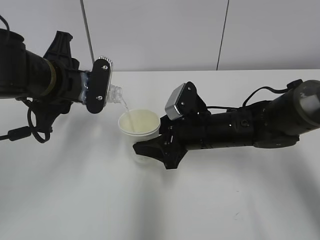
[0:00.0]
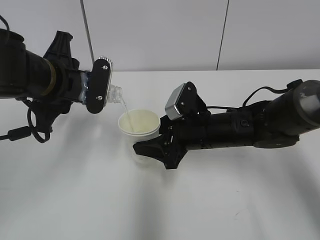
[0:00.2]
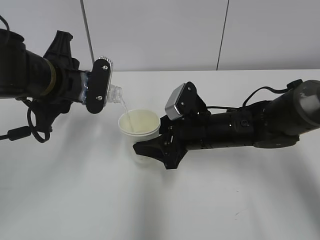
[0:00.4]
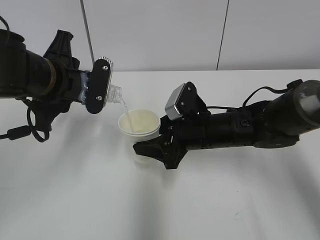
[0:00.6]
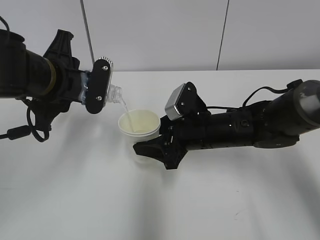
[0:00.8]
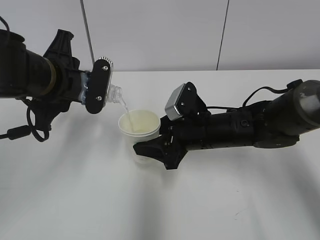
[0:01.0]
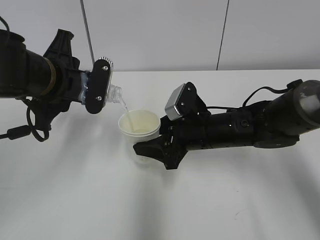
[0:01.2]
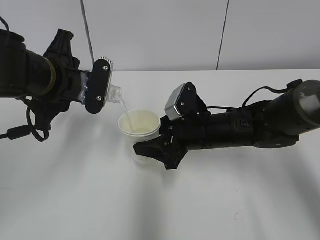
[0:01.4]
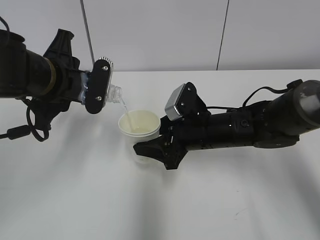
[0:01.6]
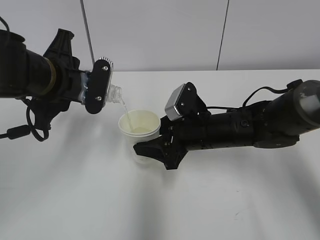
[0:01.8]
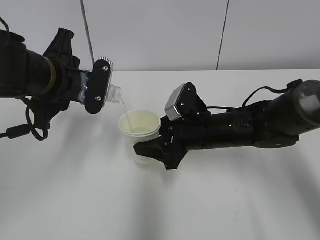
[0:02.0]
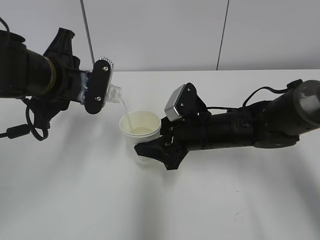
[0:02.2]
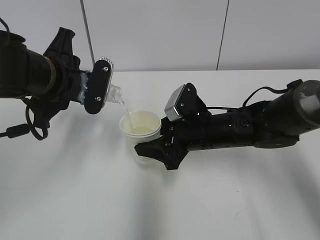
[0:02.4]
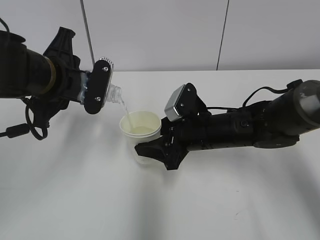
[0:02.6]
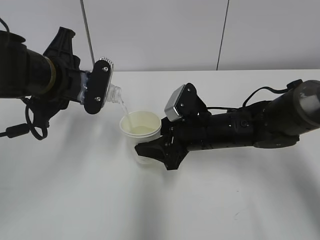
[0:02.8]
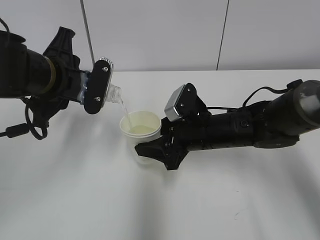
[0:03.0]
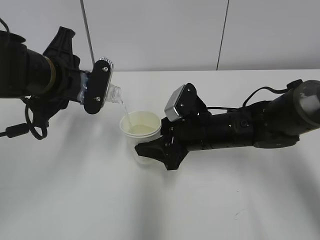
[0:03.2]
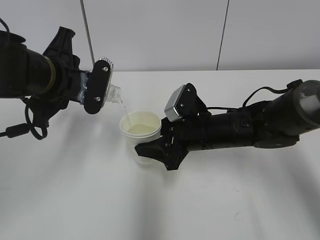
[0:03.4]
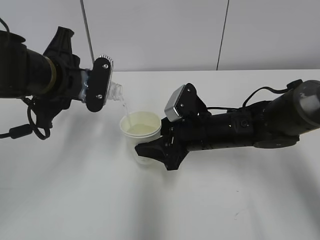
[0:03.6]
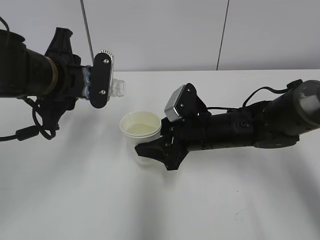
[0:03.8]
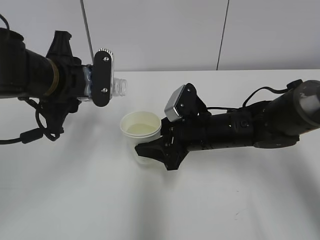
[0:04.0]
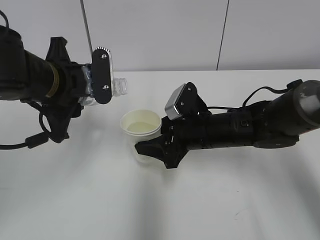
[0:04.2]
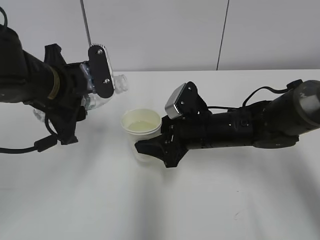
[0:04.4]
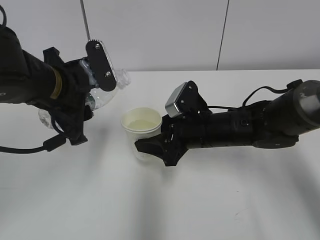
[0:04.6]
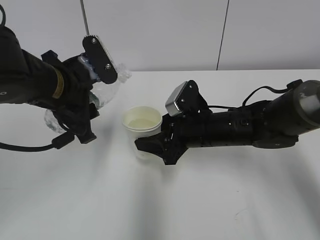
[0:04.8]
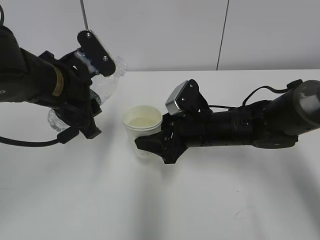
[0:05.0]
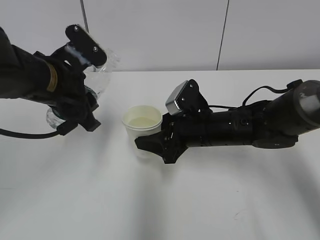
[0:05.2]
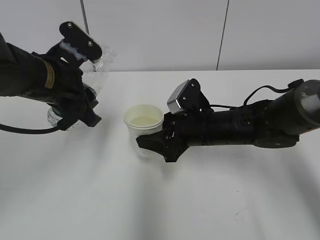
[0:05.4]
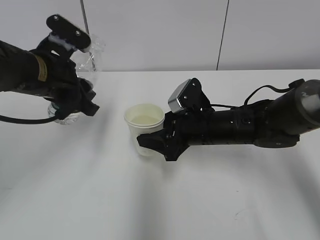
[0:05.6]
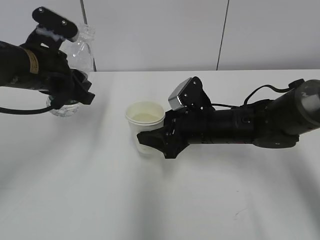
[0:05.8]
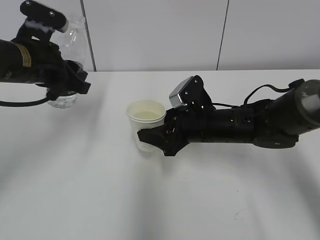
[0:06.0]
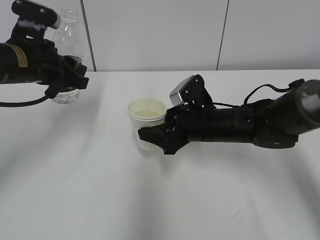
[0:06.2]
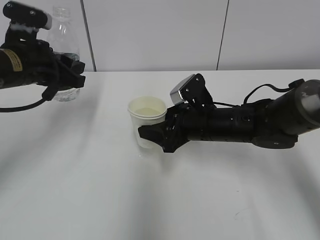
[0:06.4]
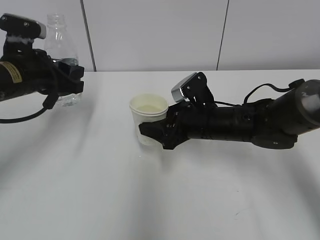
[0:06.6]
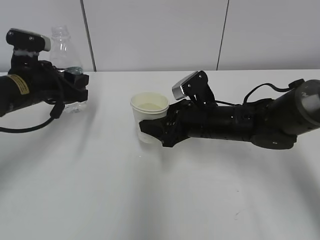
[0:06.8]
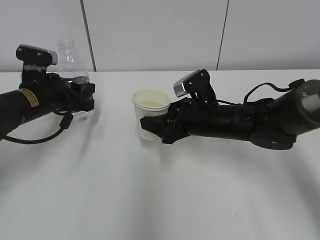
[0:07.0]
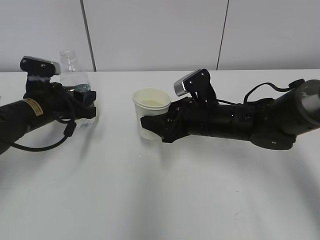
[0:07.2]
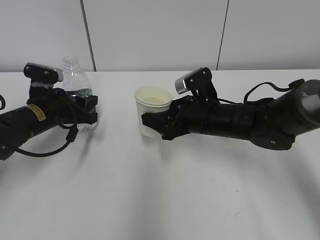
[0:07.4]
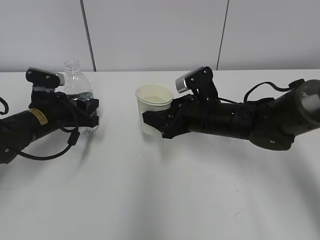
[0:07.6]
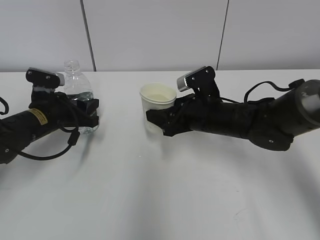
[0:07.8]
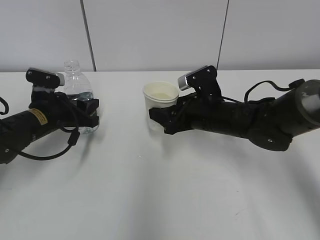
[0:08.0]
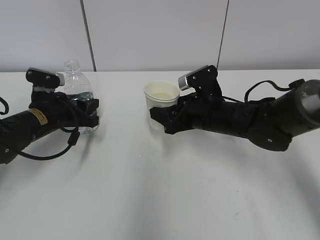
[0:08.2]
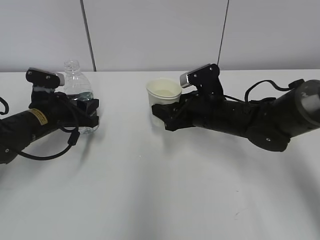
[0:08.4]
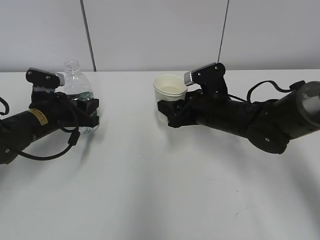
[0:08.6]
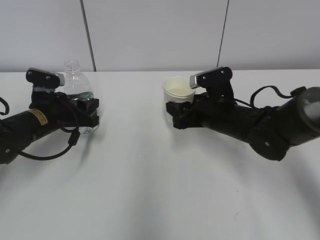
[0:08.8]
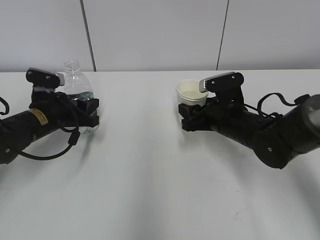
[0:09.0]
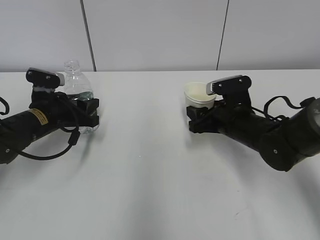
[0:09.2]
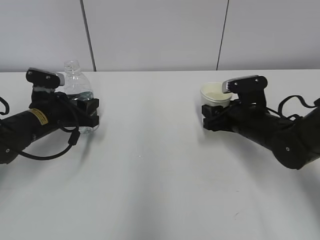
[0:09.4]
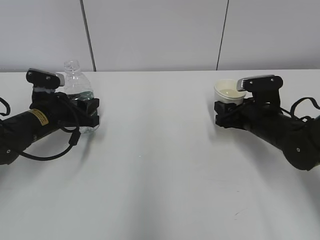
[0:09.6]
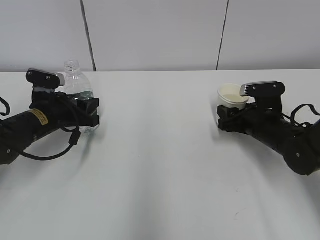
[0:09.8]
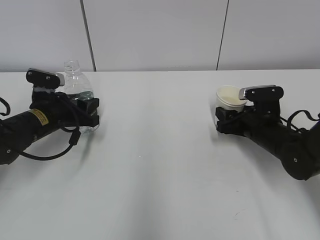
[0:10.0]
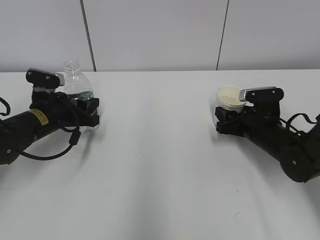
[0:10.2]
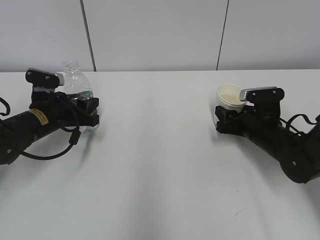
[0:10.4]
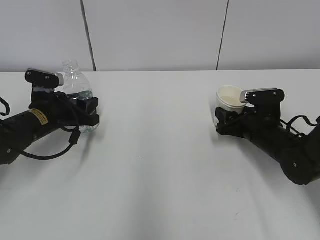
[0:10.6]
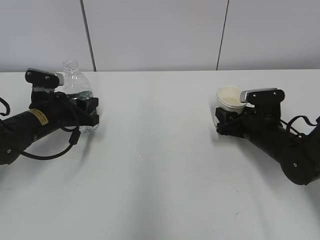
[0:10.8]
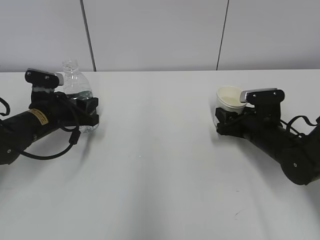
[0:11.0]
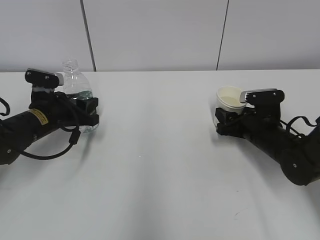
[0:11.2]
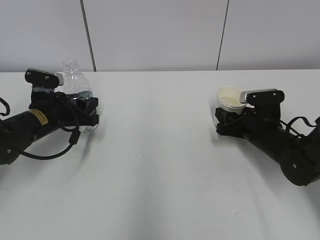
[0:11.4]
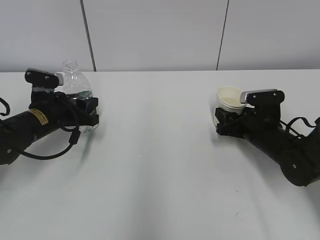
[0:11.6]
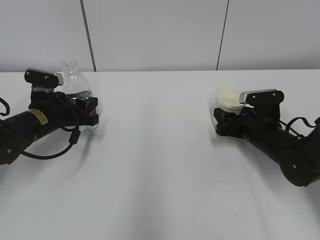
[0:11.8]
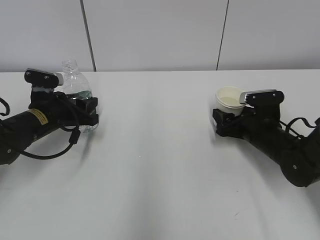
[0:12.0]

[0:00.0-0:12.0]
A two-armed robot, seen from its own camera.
Step, 0:02.6 to 0:08.6: Place the paper cup with the right hand.
0:00.0 to 0:01.6: The two grippers keep their place.
0:01.6 to 0:03.0: Both grippers stay about where they are.
0:04.4 to 0:06.0: The left gripper moves some 5 cm.
0:06.0 to 0:07.6: The left gripper is displaced downward by roughly 15 cm.
0:09.0 to 0:10.4: The right gripper shifts roughly 10 cm to the right.
0:10.4 to 0:12.0: The right gripper opens.

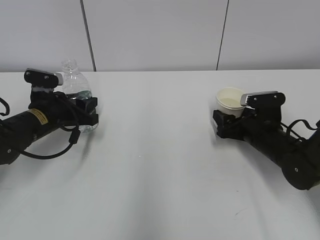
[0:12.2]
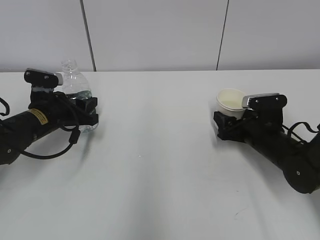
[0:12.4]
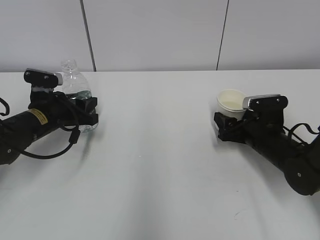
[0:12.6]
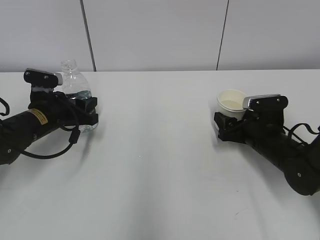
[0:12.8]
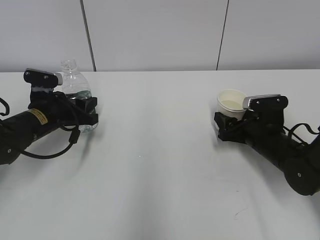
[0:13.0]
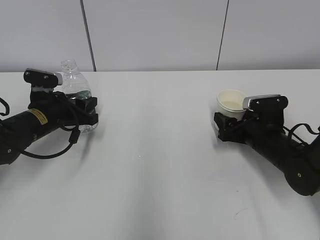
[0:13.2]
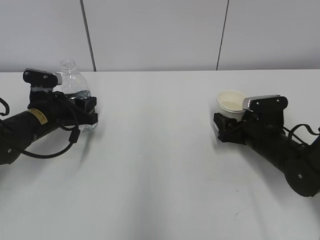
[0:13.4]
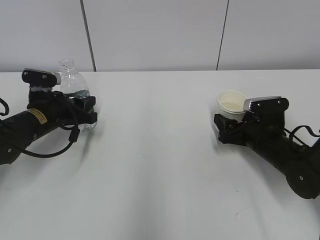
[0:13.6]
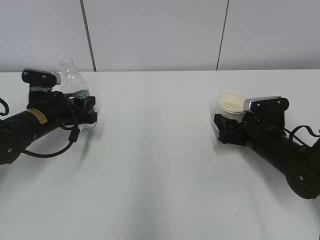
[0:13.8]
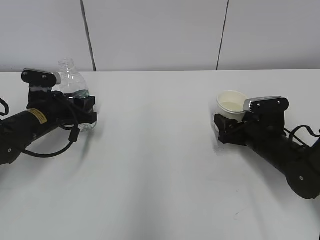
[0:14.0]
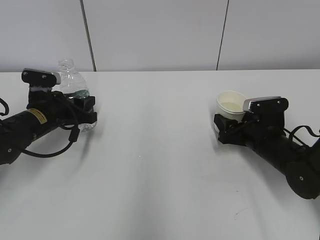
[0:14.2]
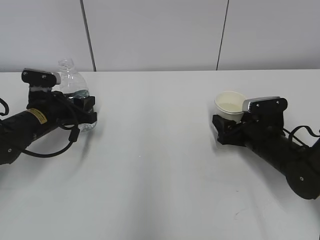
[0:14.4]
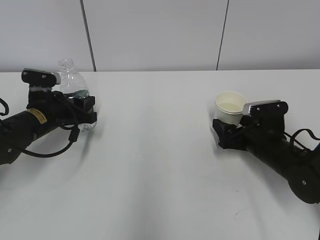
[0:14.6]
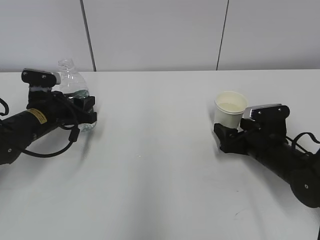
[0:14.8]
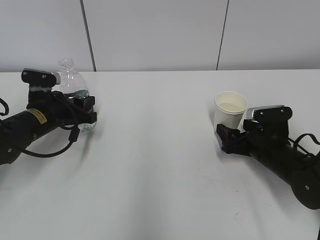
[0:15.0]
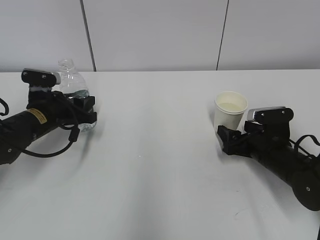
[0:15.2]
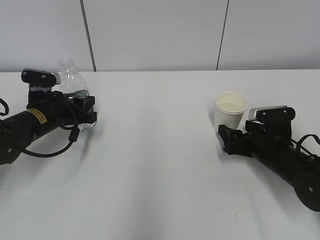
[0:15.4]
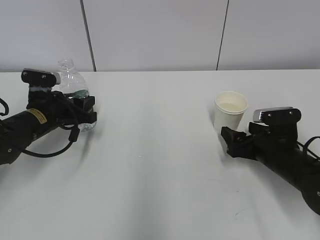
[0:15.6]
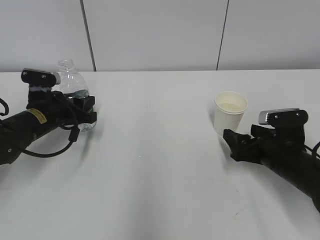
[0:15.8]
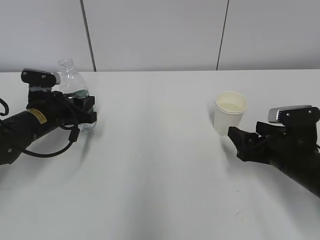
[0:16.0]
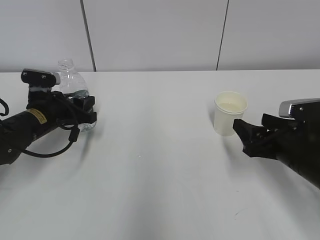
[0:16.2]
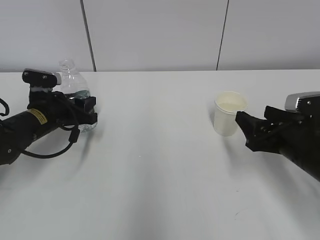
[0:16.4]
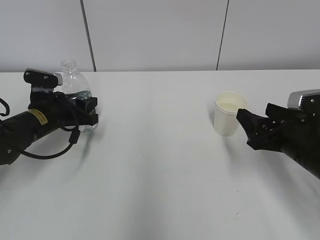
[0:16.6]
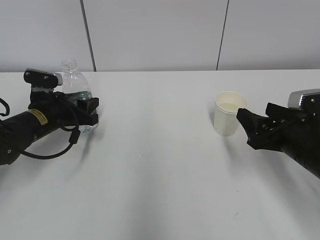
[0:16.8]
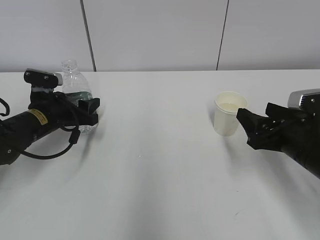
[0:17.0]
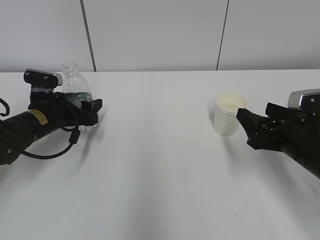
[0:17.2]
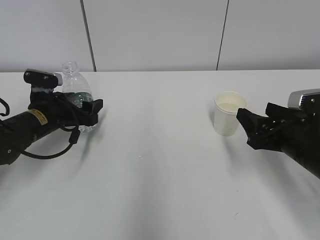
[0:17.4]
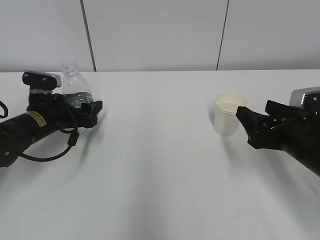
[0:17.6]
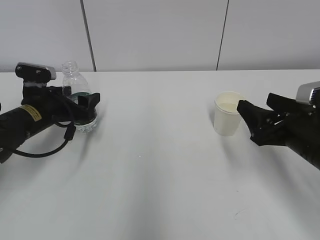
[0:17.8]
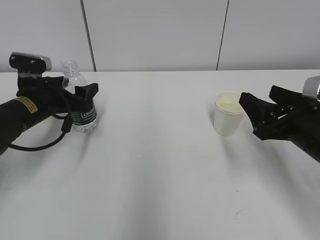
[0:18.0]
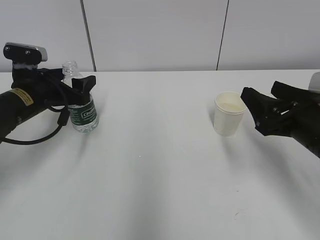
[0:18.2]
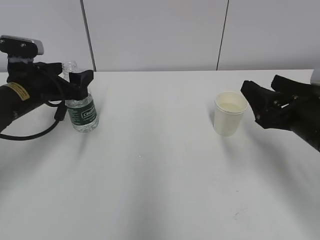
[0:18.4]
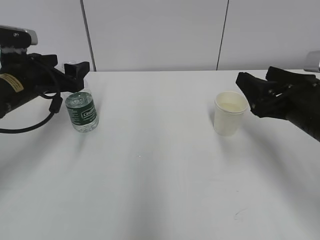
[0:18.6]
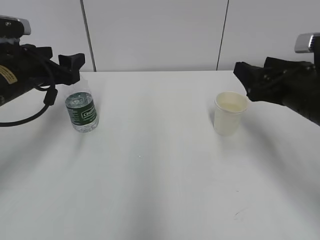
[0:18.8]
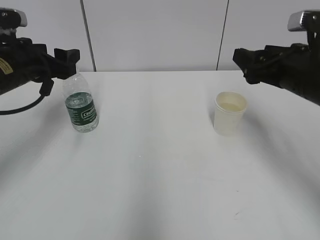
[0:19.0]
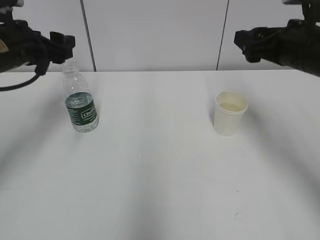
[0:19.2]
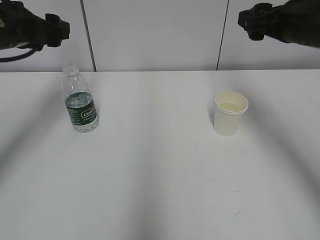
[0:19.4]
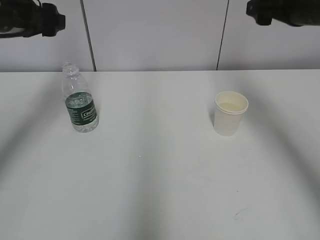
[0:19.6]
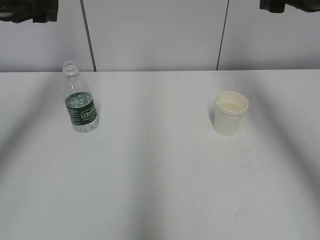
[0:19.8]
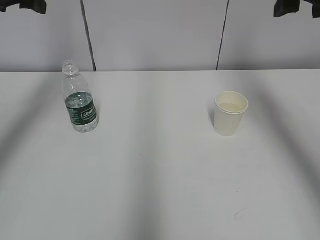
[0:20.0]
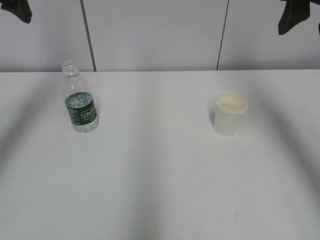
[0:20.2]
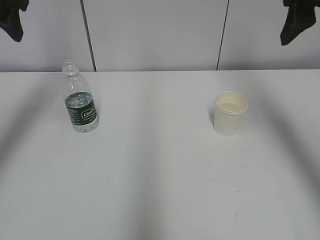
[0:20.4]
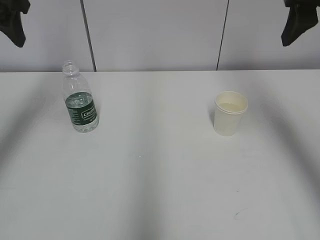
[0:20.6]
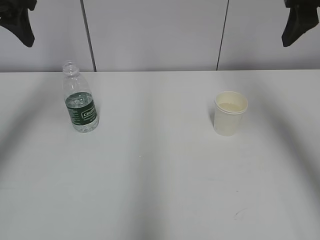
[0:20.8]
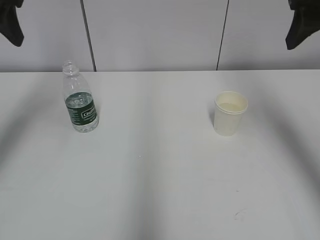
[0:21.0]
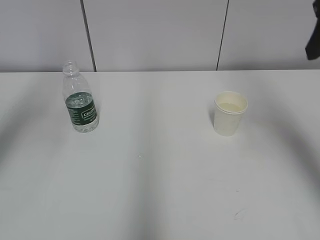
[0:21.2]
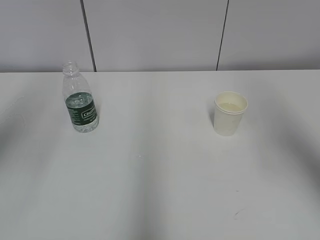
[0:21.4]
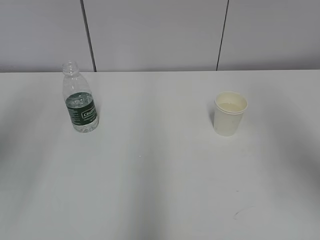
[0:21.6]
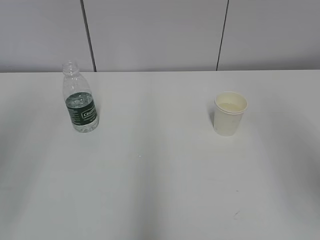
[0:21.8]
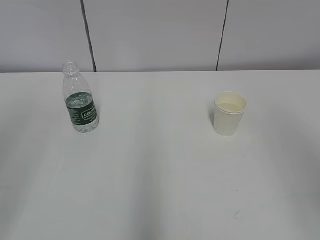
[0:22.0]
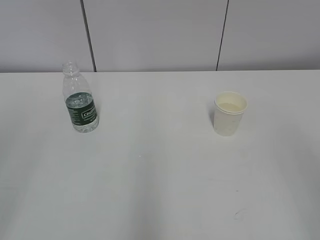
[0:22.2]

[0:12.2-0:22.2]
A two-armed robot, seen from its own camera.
0:12.2 to 0:13.6: Neither gripper changes place.
0:13.6 to 0:15.0: The grippers make only small movements.
0:15.0 to 0:16.4: The right gripper travels upward and backward by about 10 cm.
0:16.4 to 0:18.0: The left gripper opens up.
0:18.0 to 0:19.4: The left gripper travels upward by about 15 cm. Meanwhile the right gripper is displaced upward and forward by about 15 cm.
0:19.4 to 0:20.8: Both grippers move upward, about 10 cm.
0:20.8 to 0:22.2: Both grippers travel together backward, some 25 cm.
